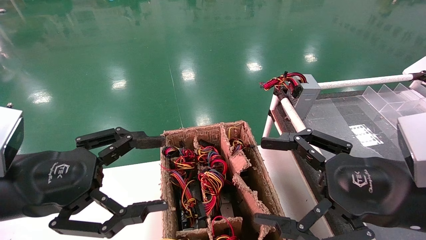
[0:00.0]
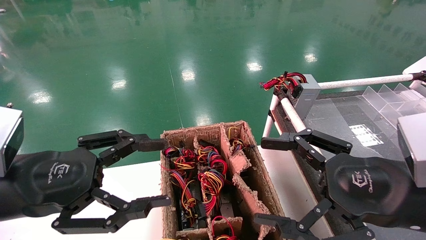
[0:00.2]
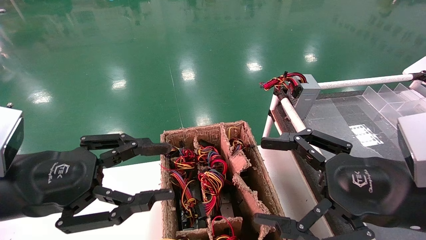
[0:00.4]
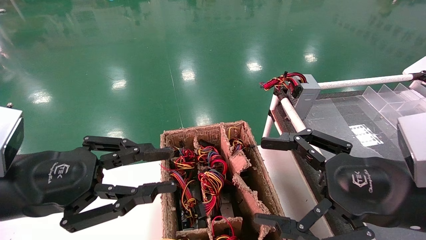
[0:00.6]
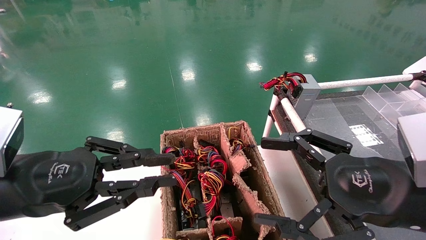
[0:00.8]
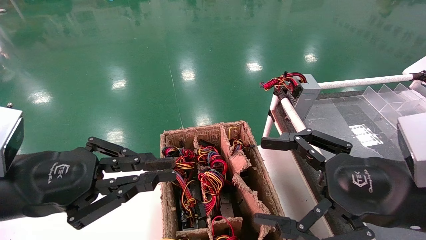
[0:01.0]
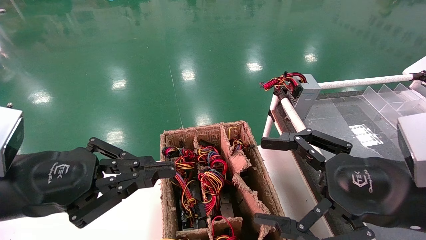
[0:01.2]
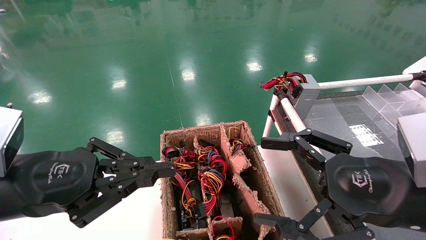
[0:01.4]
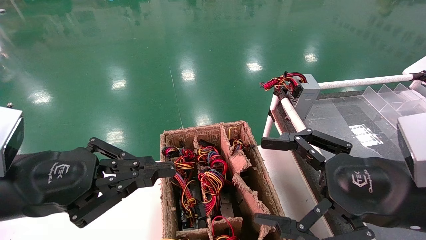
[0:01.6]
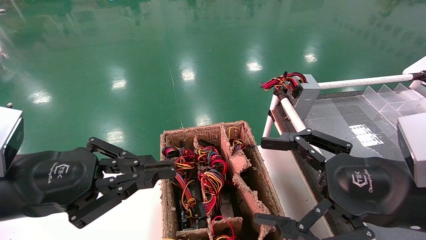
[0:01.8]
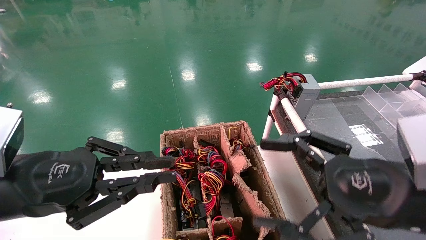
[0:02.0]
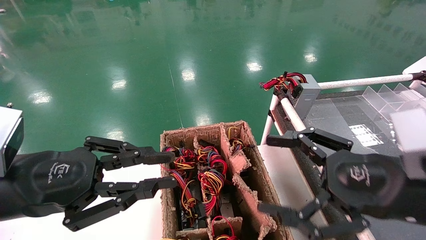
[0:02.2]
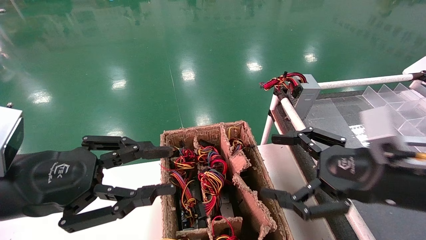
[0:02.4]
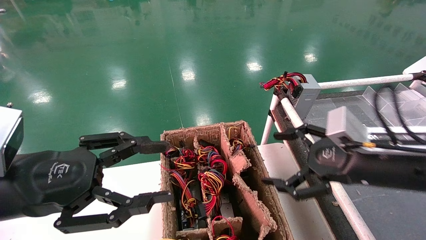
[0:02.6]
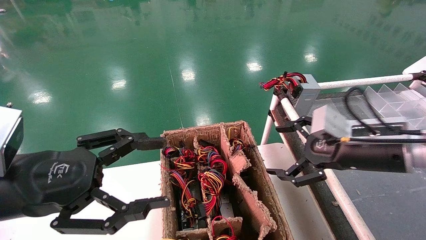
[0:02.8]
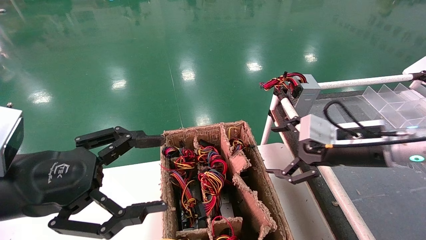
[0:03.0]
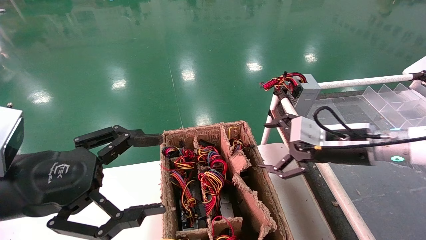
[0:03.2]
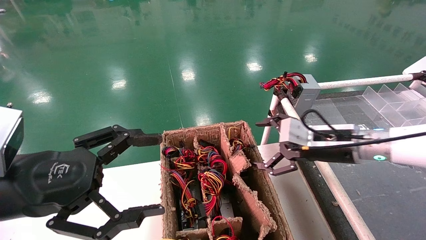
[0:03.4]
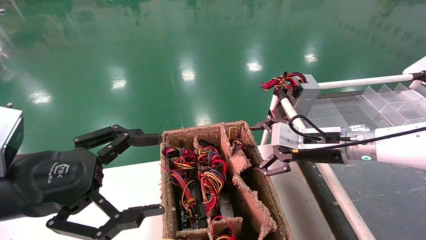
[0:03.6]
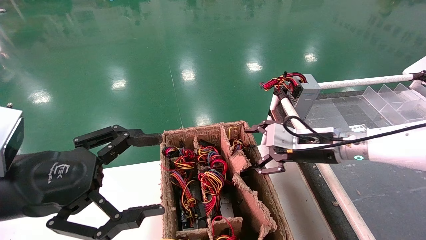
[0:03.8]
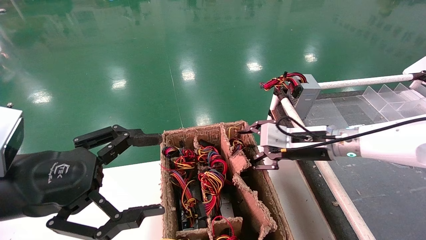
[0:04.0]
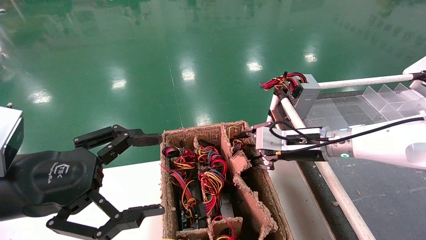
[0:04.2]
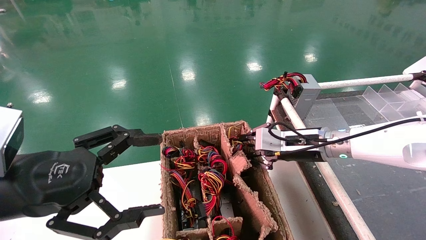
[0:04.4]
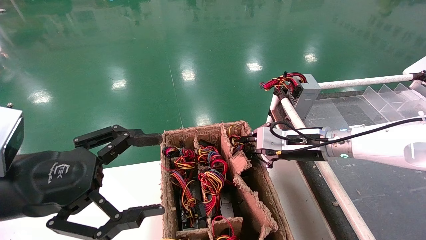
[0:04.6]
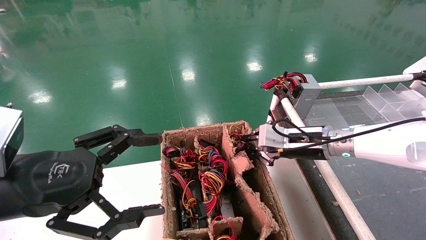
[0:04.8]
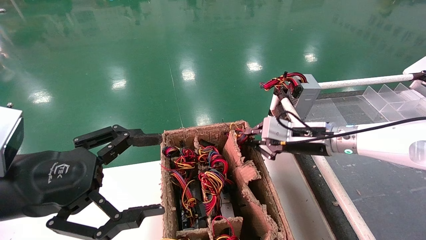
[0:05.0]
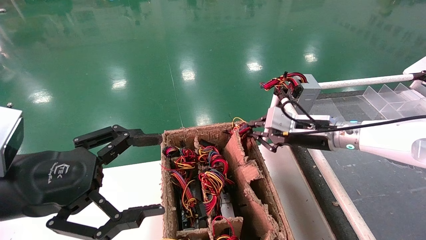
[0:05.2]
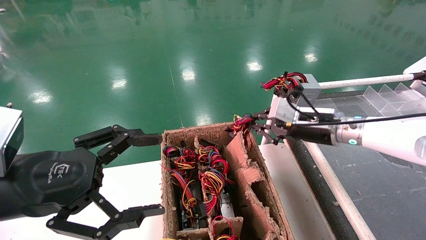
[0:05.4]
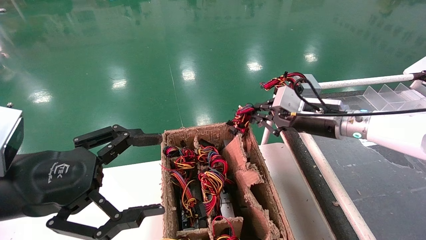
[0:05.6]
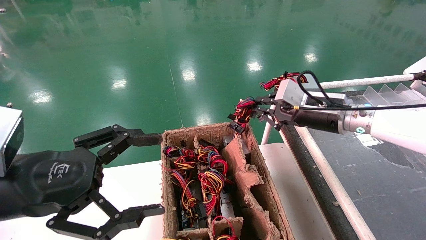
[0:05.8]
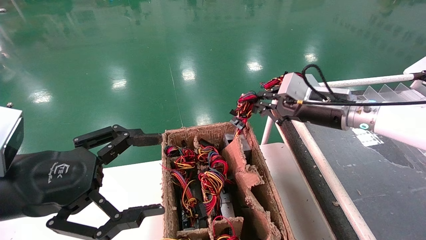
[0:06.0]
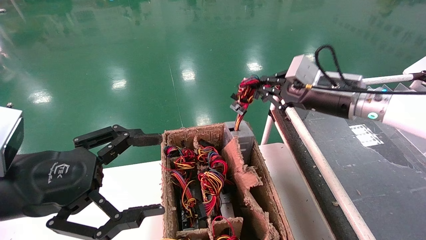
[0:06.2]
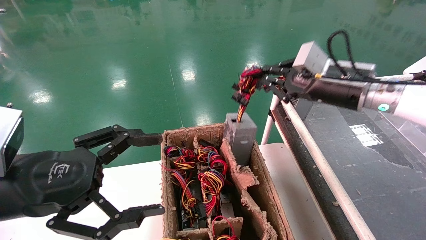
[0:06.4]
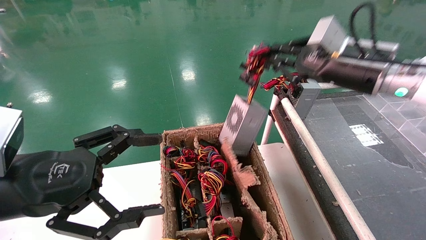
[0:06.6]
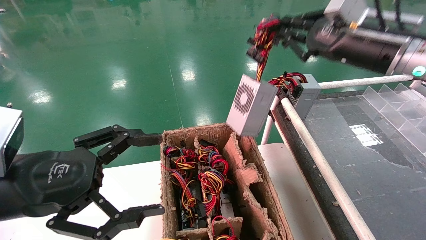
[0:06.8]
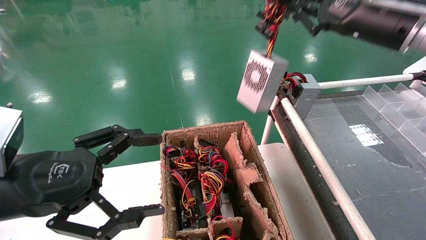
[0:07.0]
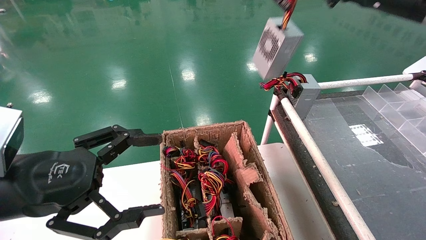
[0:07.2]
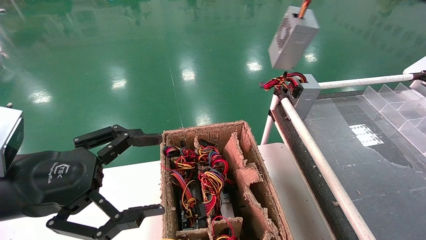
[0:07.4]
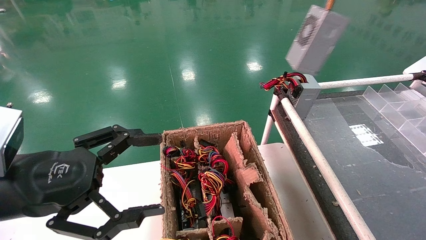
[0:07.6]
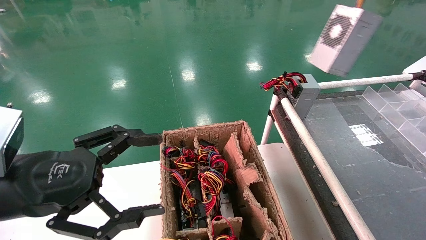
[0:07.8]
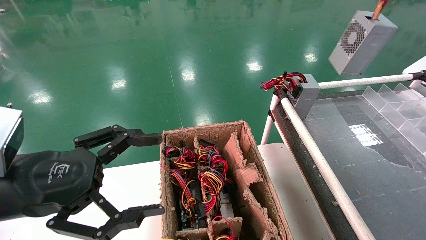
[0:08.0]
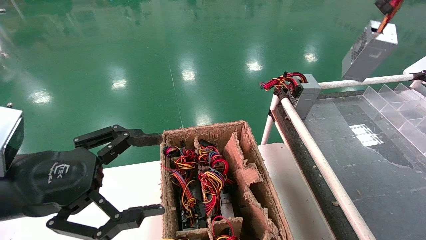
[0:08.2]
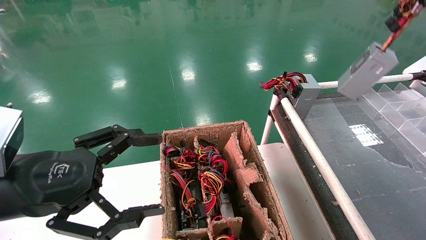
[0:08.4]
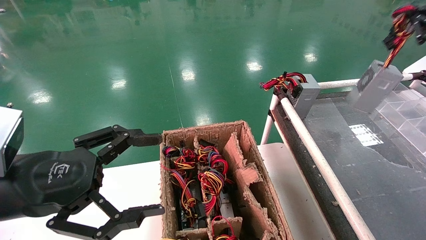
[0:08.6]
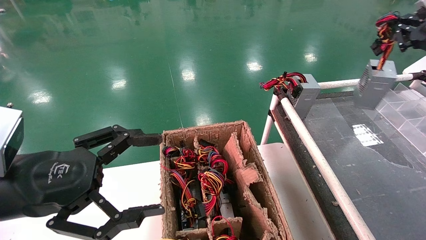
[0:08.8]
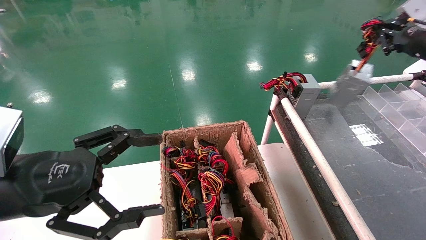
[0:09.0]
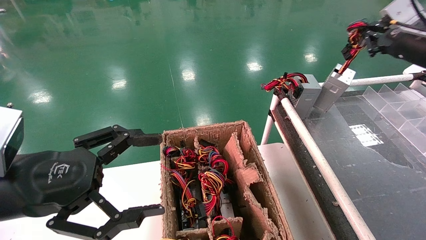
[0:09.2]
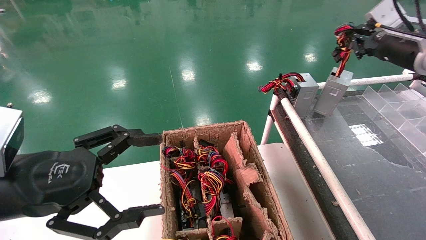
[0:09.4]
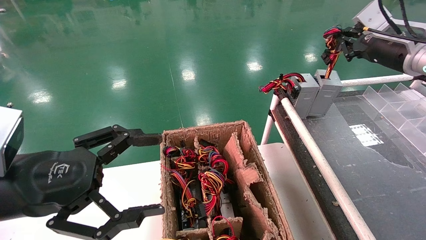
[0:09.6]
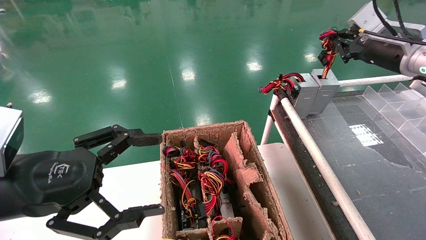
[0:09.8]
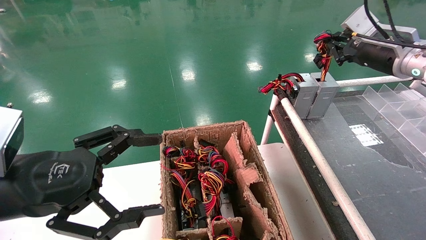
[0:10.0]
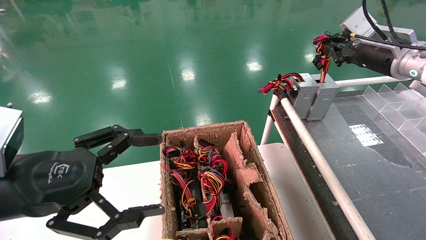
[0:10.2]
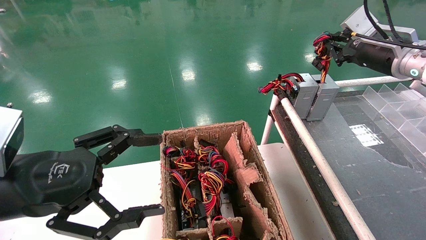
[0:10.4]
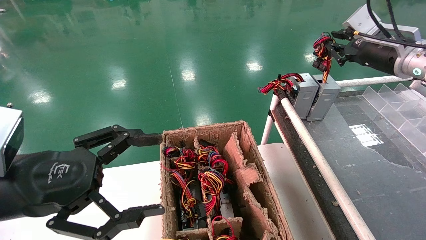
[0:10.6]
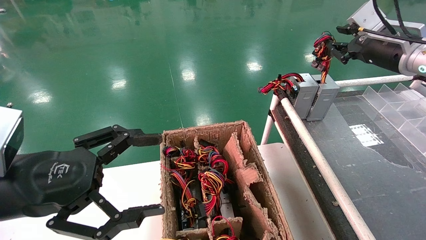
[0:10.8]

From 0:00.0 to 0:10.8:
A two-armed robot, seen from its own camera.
Step, from 0:01.4 to 0:04.8: Grab and lift the power supply from the large box.
Step, from 0:05.0 to 0:10.2: Place the power supply on the operating table.
From 0:00.0 to 0:01.6: The left gripper closes.
From 0:01.6 to 0:03.0: The left gripper opens up; the right gripper goes about 15 cm forward.
From 0:03.0 to 0:04.6: The right gripper goes about 10 cm forward and to the left, and closes its fingers.
From 0:04.6 to 0:06.2: The right gripper goes approximately 10 cm upward.
From 0:06.2 to 0:07.8: The right gripper is displaced upward, to the right and backward by about 25 cm.
From 0:07.8 to 0:09.2: The right gripper heads downward and forward, covering roughly 15 cm.
From 0:09.2 to 0:10.8: The grippers move only a little.

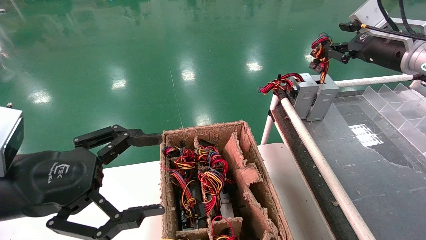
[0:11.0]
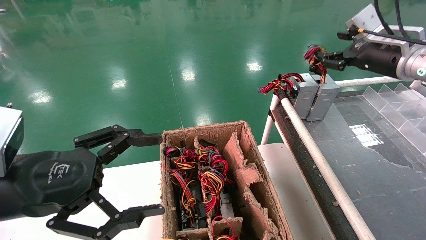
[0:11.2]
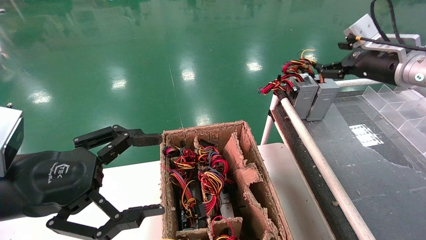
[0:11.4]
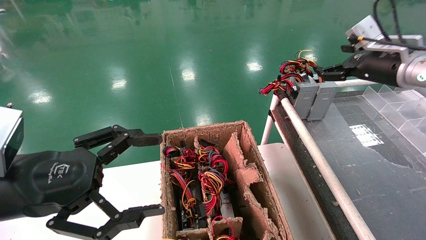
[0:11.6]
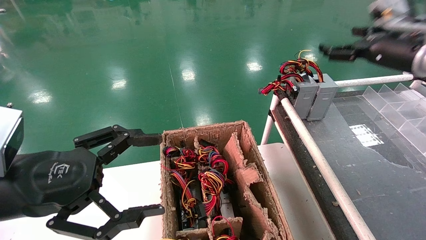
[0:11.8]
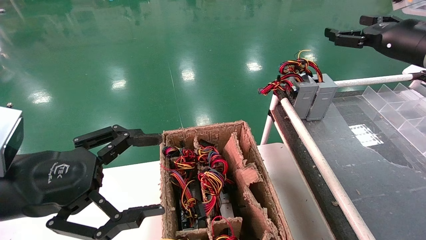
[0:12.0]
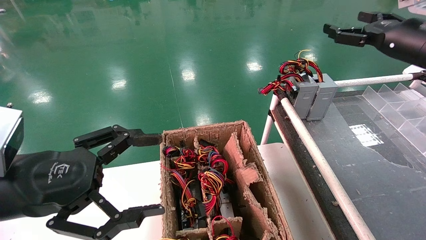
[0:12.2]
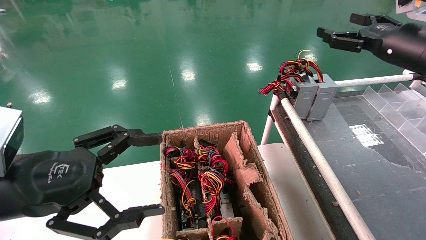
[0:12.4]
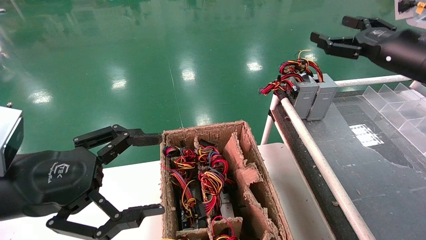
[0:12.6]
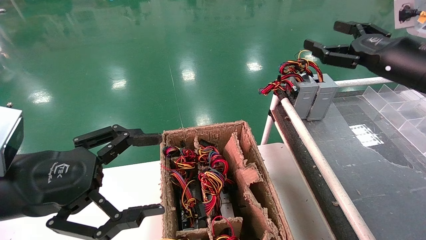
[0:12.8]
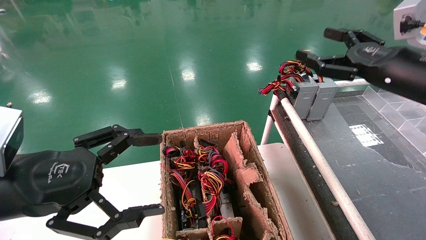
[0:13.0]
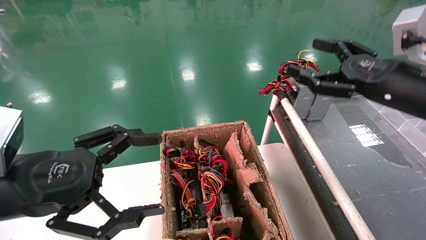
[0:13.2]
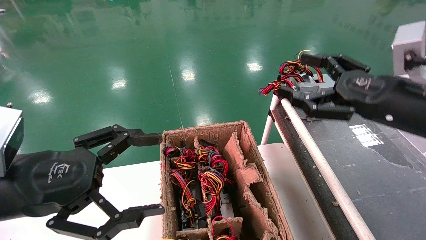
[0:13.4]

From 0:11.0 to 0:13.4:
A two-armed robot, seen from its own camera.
From 0:11.0 to 0:12.2: The right gripper opens its fingers.
From 0:12.2 to 0:13.4: The right gripper shifts roughly 15 cm backward, downward and to the left.

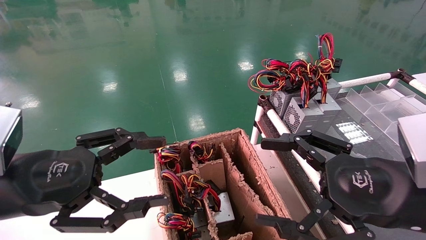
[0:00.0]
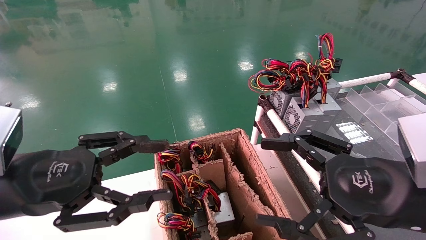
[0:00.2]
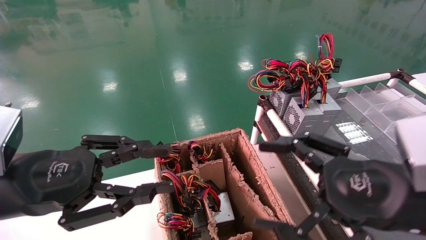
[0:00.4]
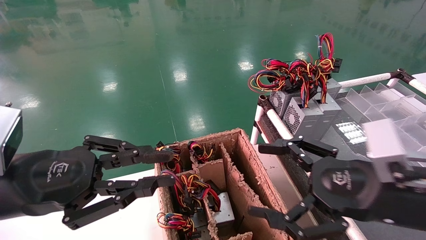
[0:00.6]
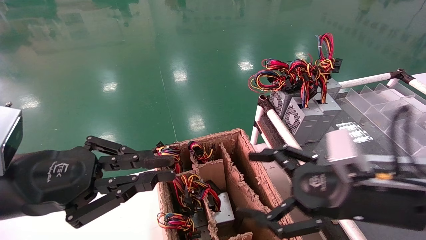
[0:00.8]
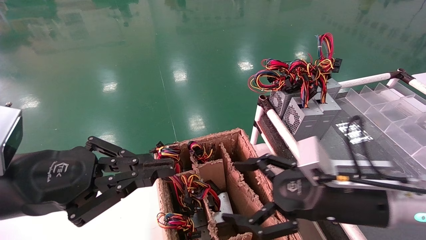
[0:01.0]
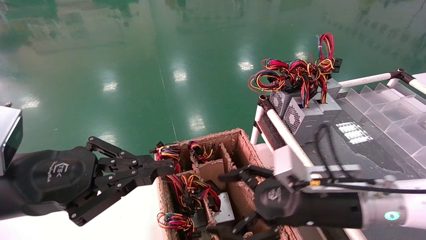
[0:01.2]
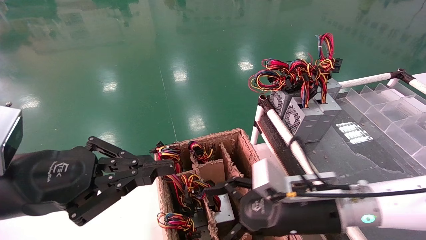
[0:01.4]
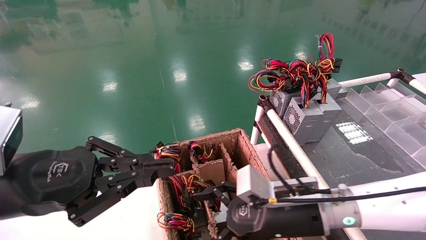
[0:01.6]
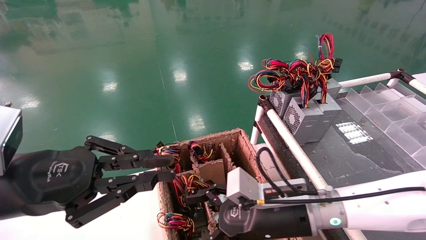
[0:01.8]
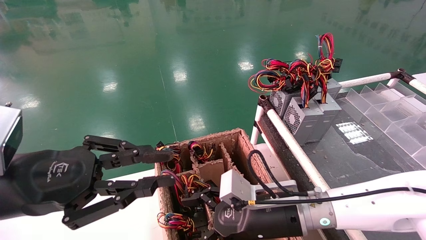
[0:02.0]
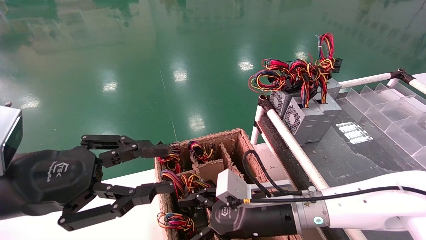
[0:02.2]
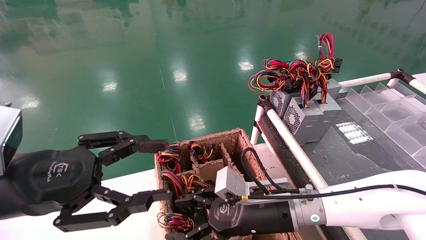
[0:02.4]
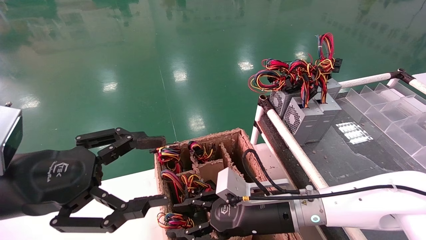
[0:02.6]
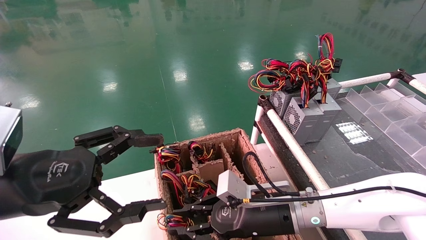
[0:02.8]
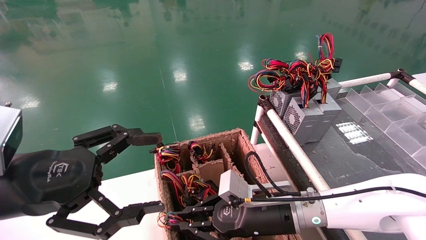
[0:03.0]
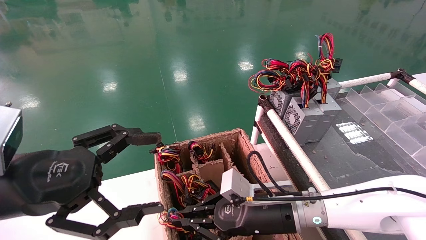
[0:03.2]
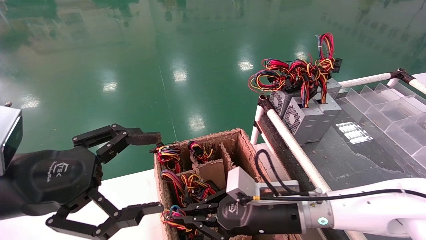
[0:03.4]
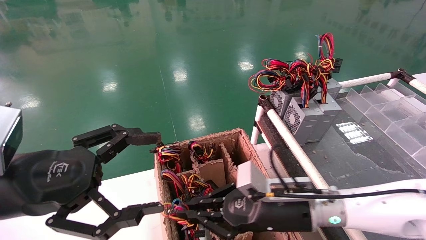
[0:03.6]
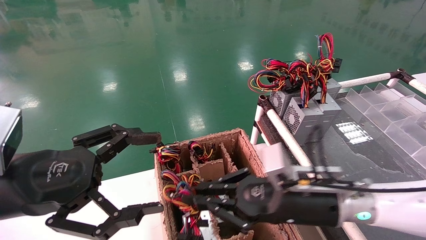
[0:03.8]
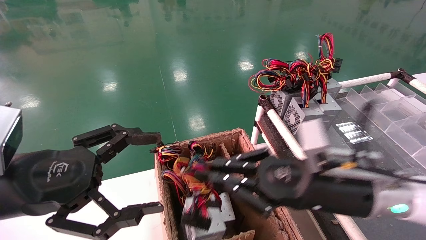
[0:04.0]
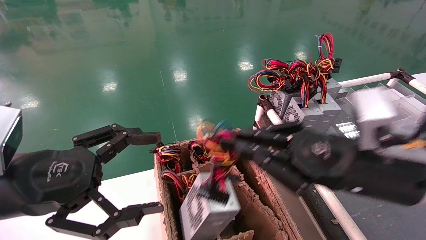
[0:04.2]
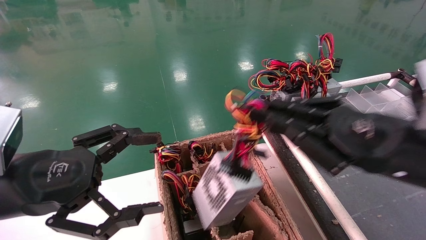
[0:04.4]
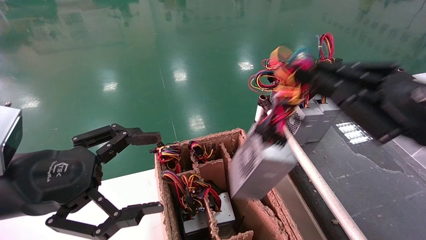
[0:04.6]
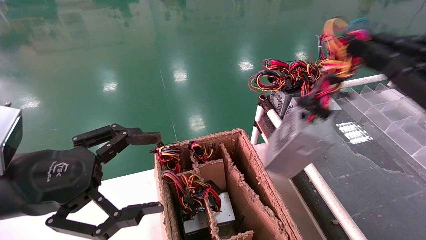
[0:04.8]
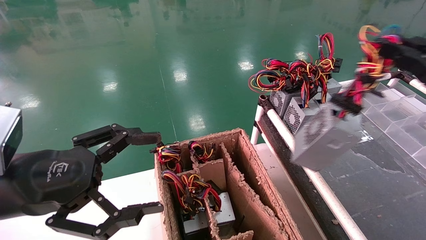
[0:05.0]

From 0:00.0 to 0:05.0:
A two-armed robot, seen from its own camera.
Step, from 0:01.2 to 0:03.2: Grab and lift the power supply from the large box.
From 0:00.0 to 0:01.6: The left gripper closes up; the right gripper is displaced to the left, downward and forward by roughly 20 cm.
From 0:01.6 to 0:03.4: The right gripper closes; the left gripper opens.
From 0:03.4 to 0:05.0: The right gripper is displaced to the right and upward by roughly 35 cm.
